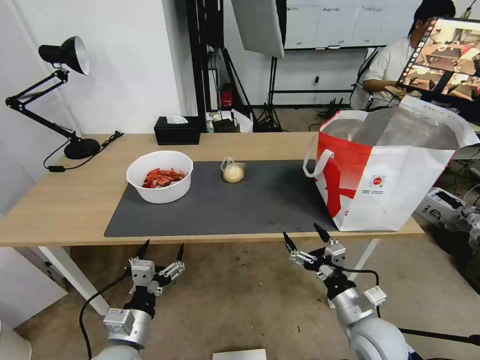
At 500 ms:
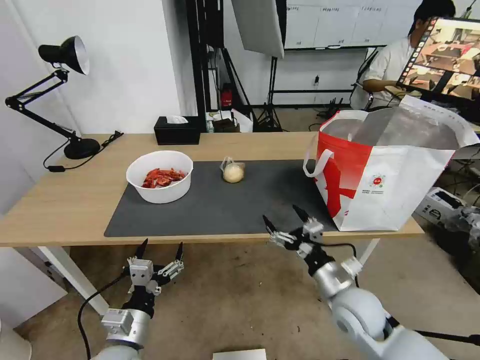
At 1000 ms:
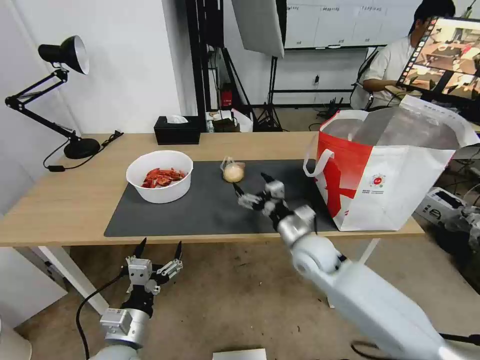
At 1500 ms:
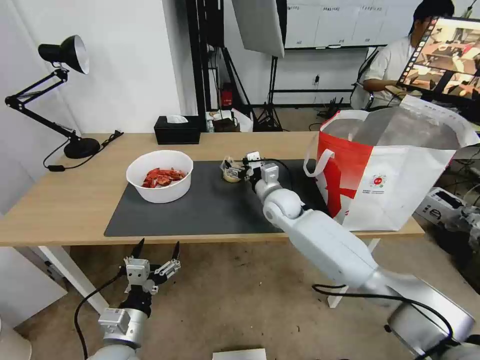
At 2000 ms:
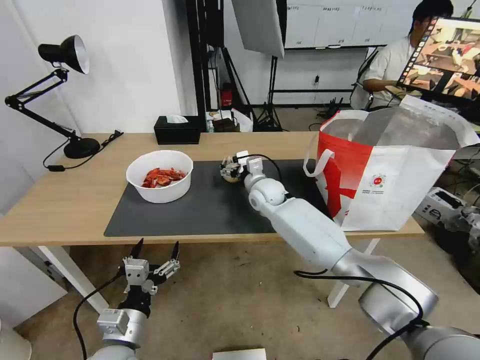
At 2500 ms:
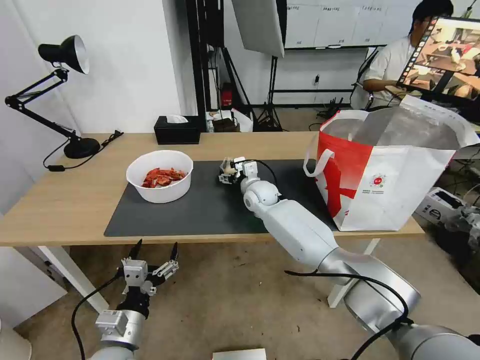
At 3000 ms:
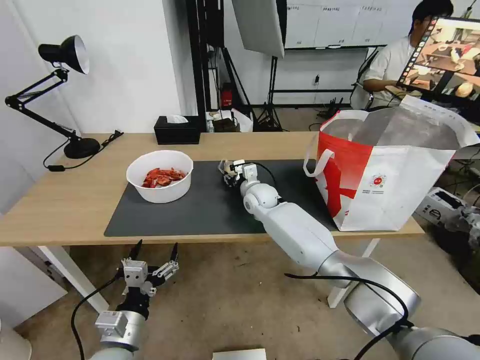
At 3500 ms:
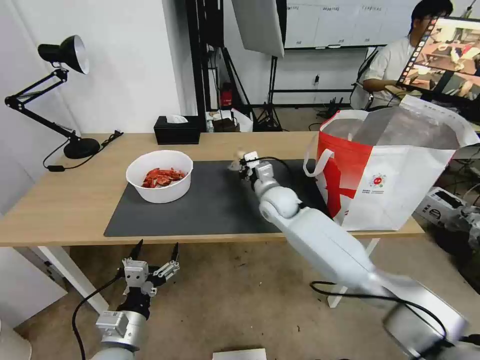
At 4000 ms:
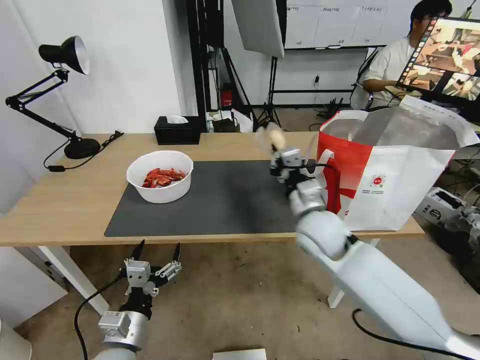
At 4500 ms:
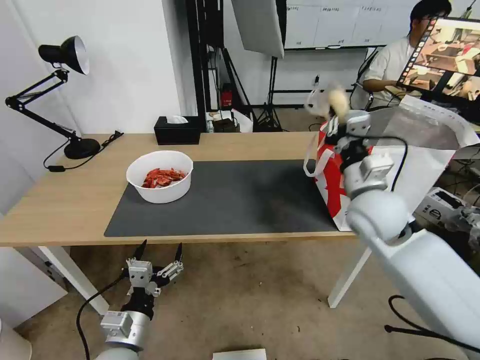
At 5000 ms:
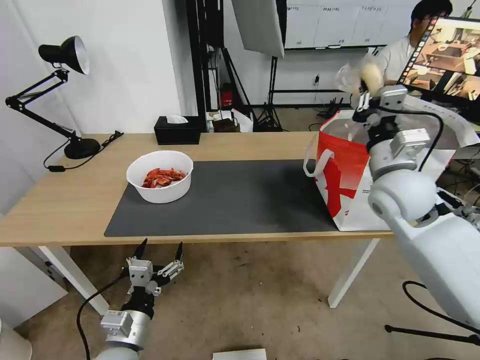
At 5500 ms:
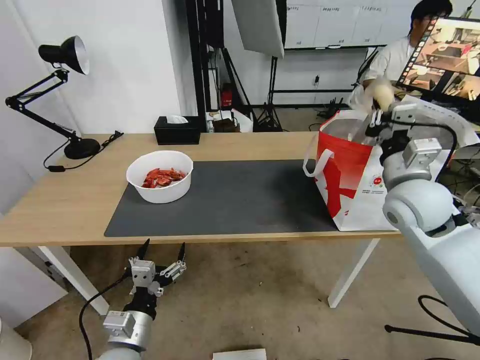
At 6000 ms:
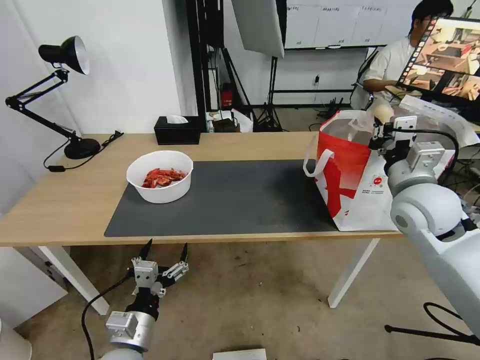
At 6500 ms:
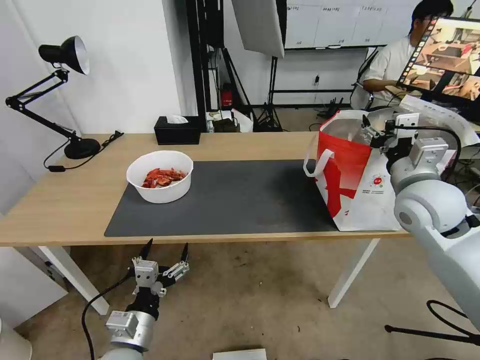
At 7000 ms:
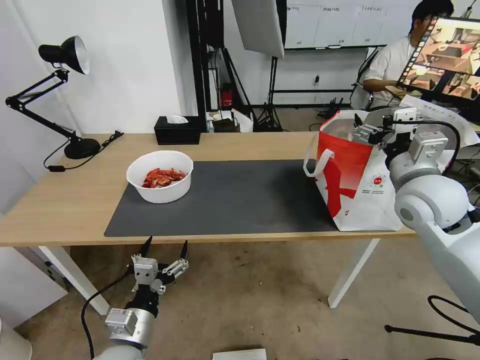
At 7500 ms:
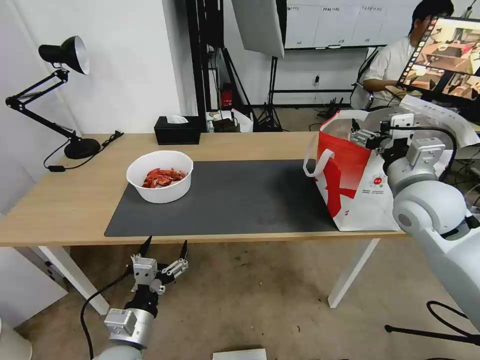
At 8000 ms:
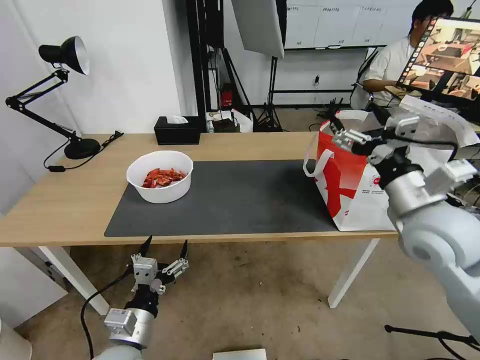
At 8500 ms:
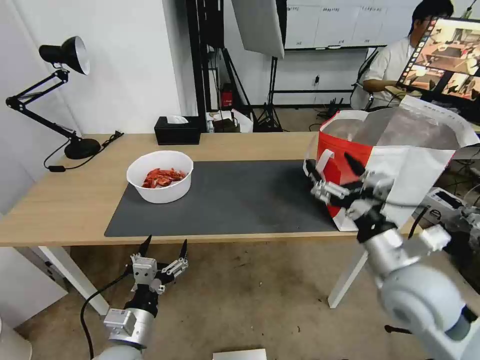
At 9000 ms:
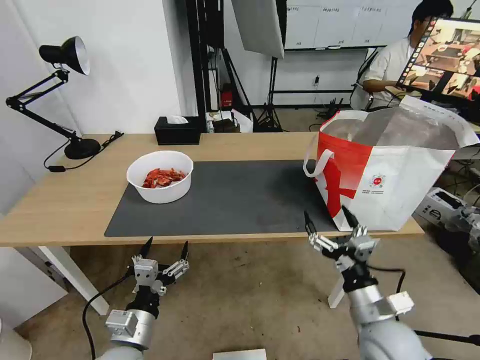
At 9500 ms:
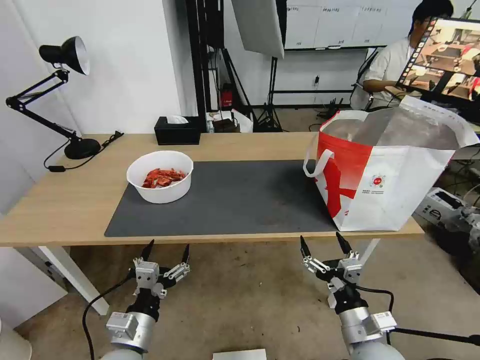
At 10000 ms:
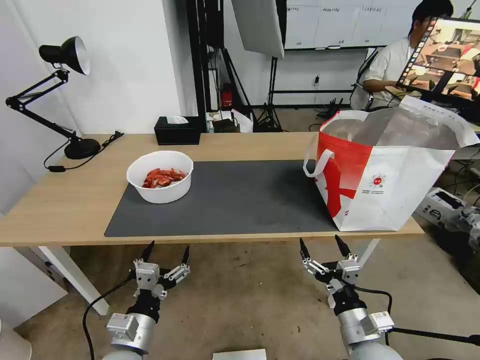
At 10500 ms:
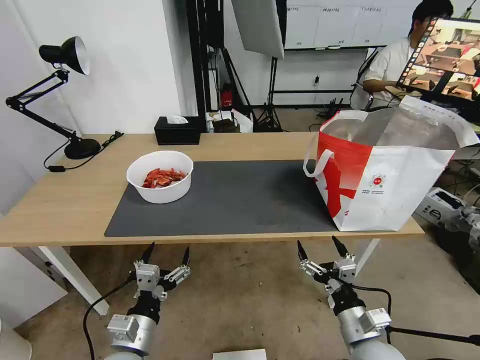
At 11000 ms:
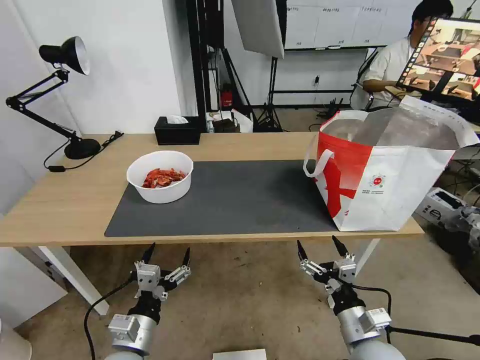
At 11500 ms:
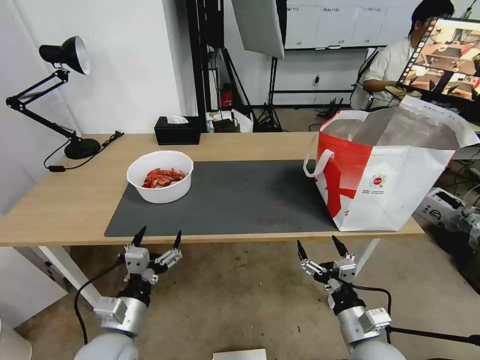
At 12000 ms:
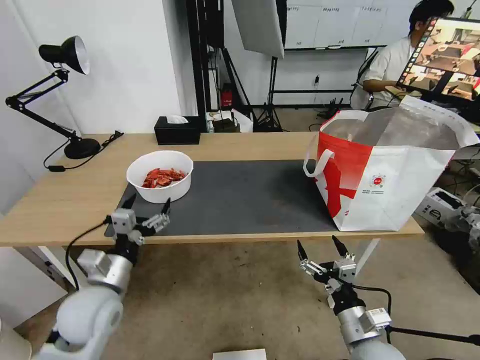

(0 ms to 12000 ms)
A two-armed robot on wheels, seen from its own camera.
Task of the whole recording: Pick up the trash from the table and place it into the takeout bag.
0 ms - 2000 ms: The right gripper is displaced forward and to the left by about 40 cm.
2000 ms - 4000 ms: The right gripper goes about 20 cm backward and to the right, and closes up.
4000 ms - 6000 ms: The right gripper is displaced to the right and upward by about 15 cm.
6000 ms - 8000 ms: The right gripper goes some 5 cm backward, and opens up.
8000 ms - 10000 ms: The right gripper shifts roughly 30 cm downward and backward.
10000 ms - 12000 ms: The left gripper moves forward, upward and to the left, approximately 15 cm.

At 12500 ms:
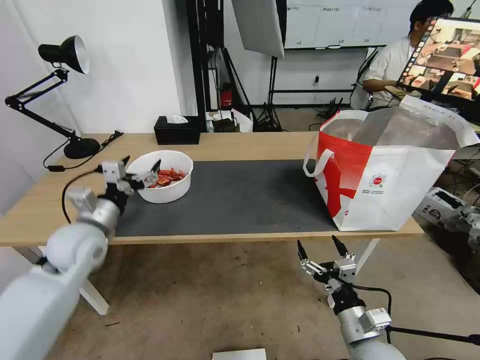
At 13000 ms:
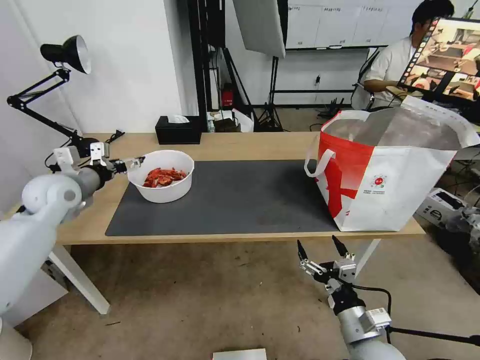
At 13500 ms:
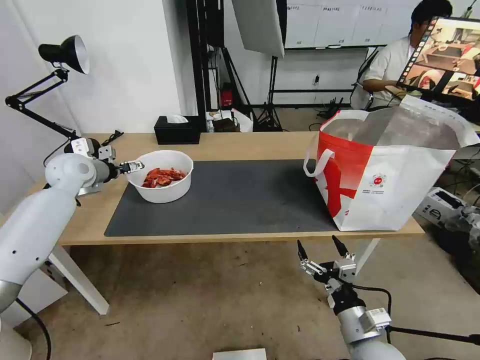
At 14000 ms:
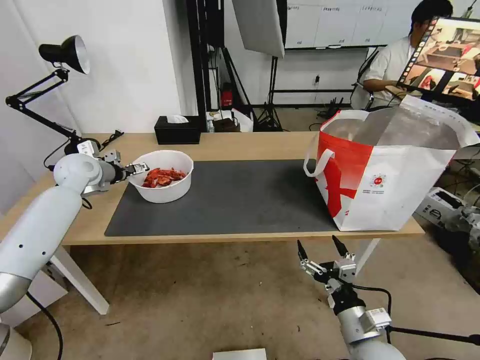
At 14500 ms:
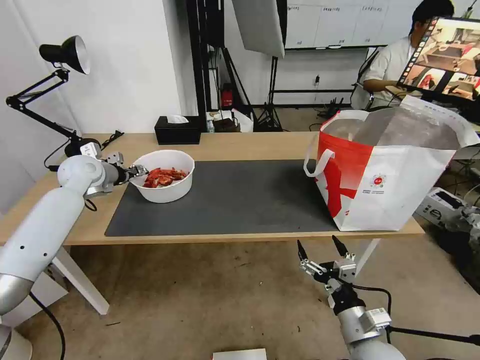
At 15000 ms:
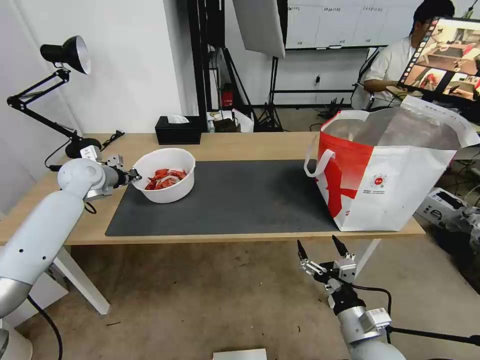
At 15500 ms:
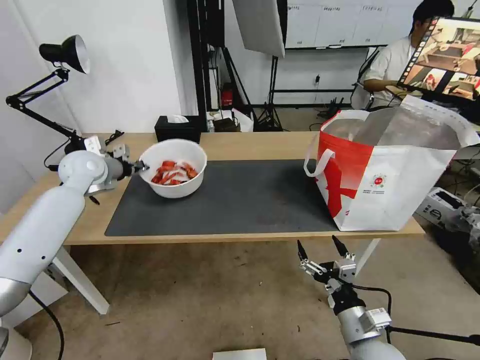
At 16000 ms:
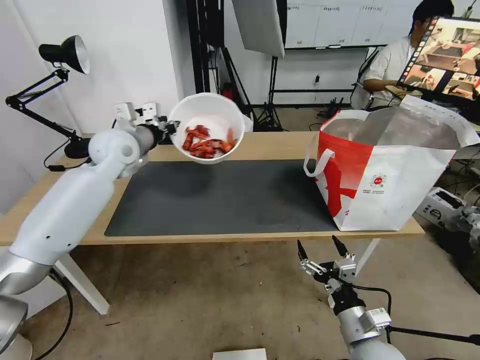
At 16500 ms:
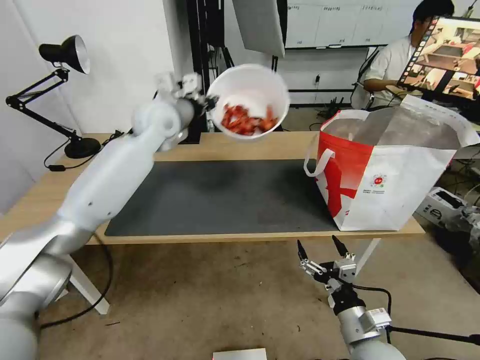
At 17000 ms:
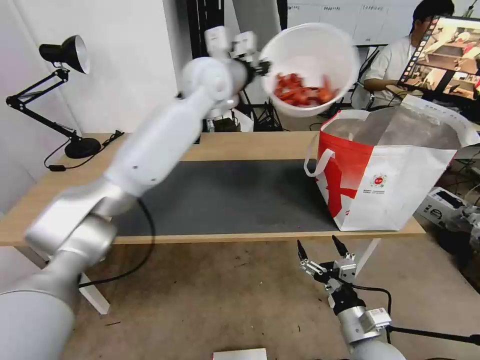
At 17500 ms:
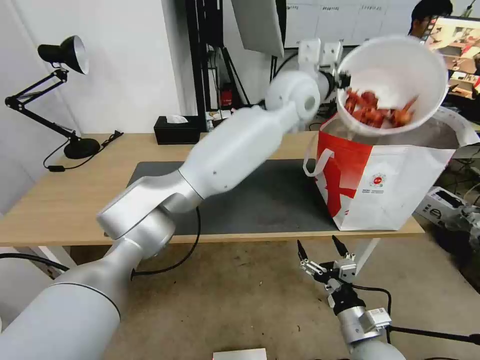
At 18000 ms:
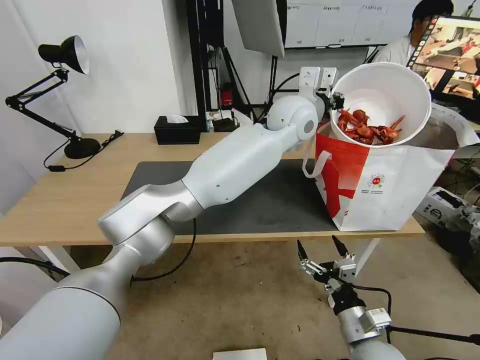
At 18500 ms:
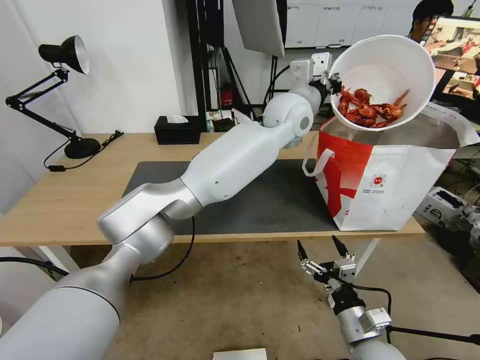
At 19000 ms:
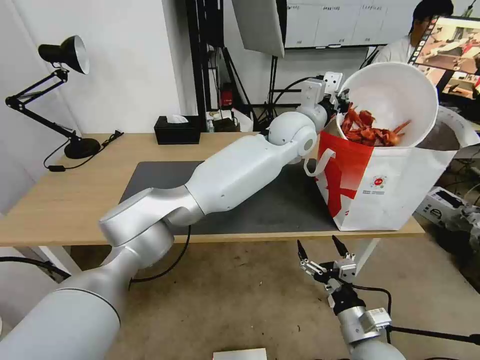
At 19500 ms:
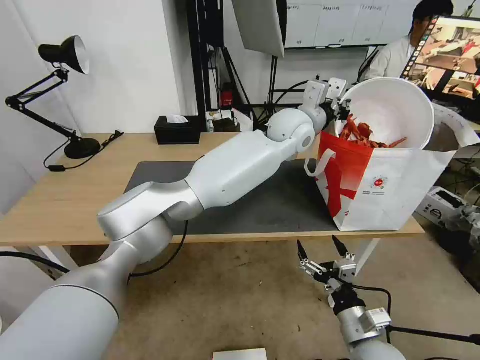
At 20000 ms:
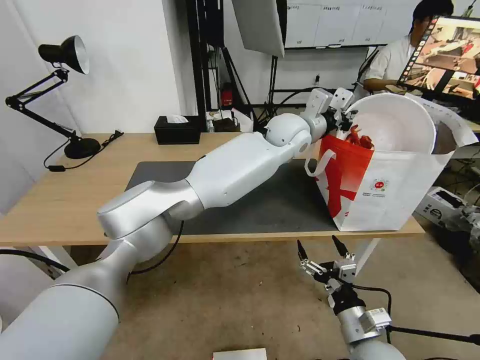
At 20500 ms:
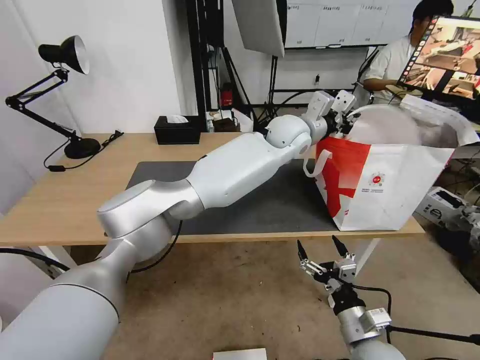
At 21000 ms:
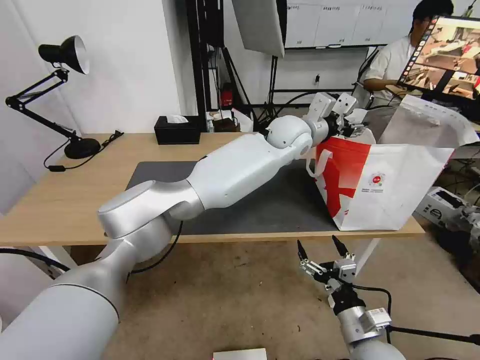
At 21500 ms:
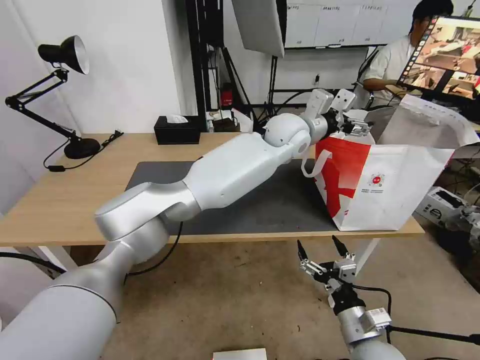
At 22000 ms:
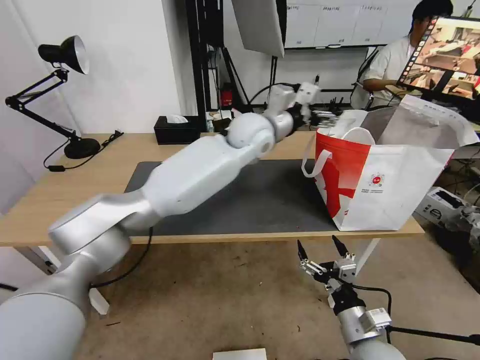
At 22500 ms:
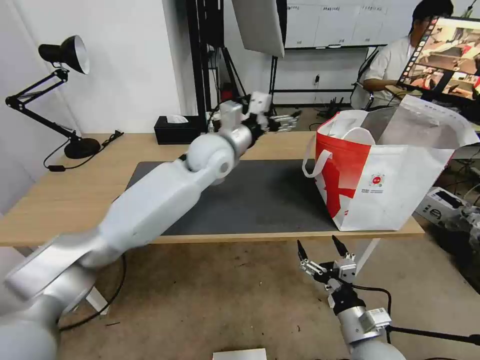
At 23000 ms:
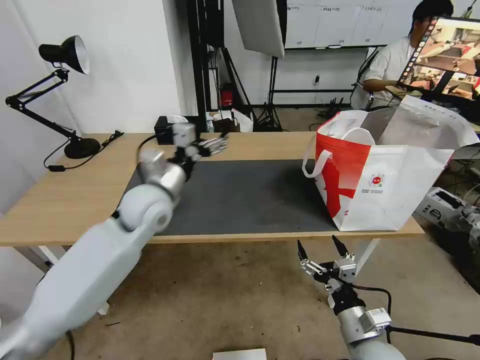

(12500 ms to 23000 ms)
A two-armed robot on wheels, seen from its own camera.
Task of the whole recording: Pick up the trash from the table and place it into the takeout bag.
12500 ms - 14500 ms: The left gripper heads forward, covering roughly 20 cm, and closes up.
14500 ms - 16500 ms: The left gripper heads to the right and upward, covering approximately 25 cm, and closes its fingers.
16500 ms - 19000 ms: The left gripper travels to the right by about 30 cm.
19000 ms - 21000 ms: The left gripper opens up.
21000 ms - 23000 ms: The left gripper shifts approximately 35 cm to the left and backward.

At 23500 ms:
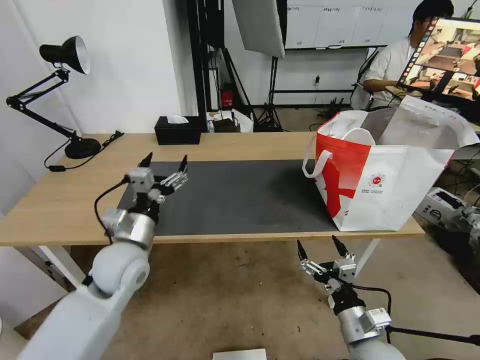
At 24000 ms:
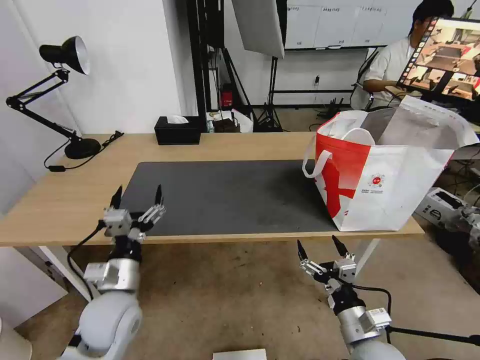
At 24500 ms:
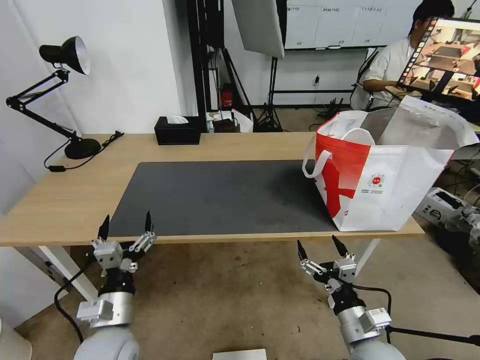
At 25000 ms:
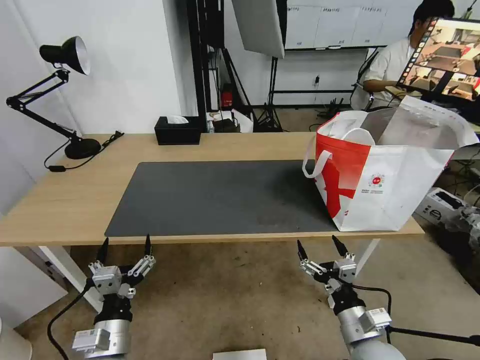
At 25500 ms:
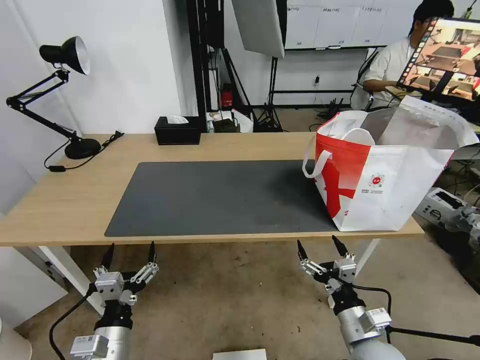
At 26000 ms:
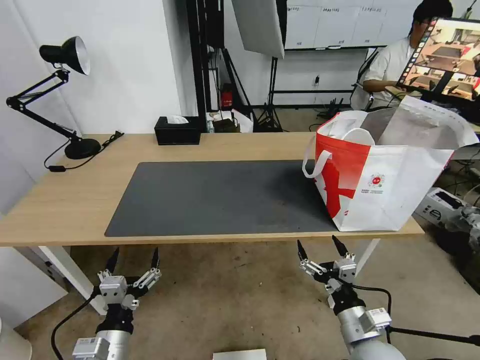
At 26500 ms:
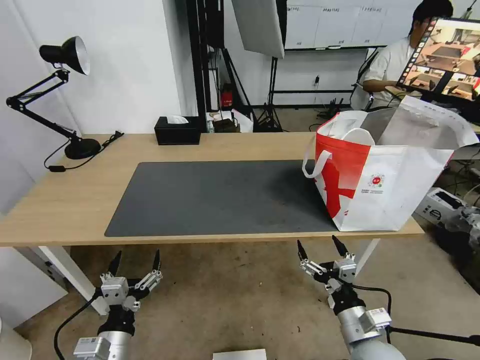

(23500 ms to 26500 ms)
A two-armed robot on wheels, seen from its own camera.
Task of the whole recording: Pick up the trash from the table and place it into the takeout bag.
23500 ms - 25000 ms: The left gripper goes some 20 cm backward and downward.
25000 ms - 26500 ms: There are only small adjustments of the grippers.
